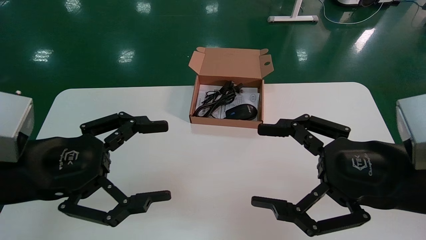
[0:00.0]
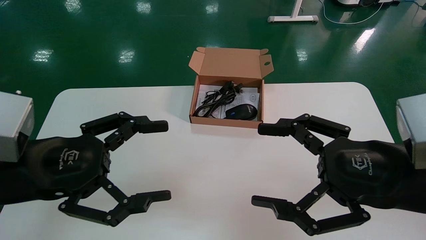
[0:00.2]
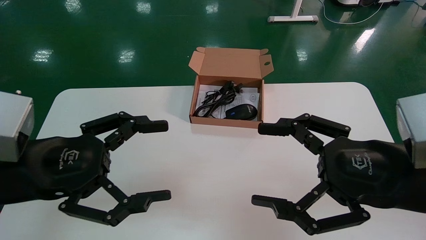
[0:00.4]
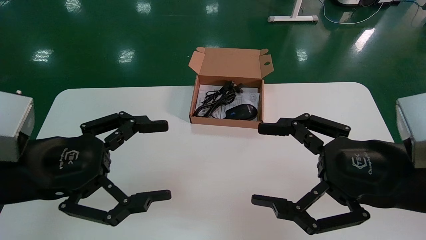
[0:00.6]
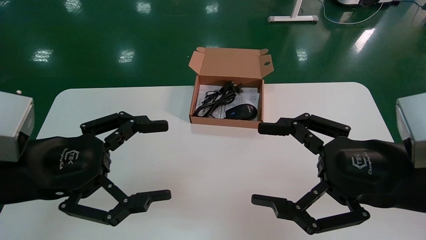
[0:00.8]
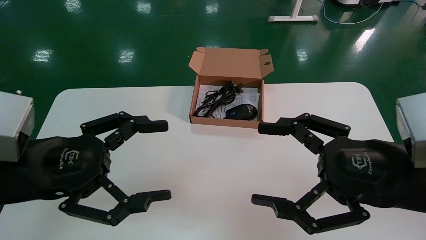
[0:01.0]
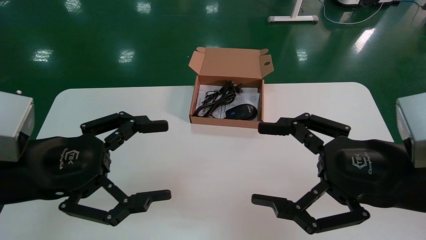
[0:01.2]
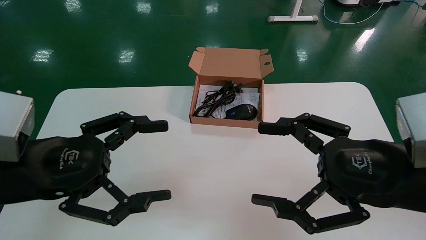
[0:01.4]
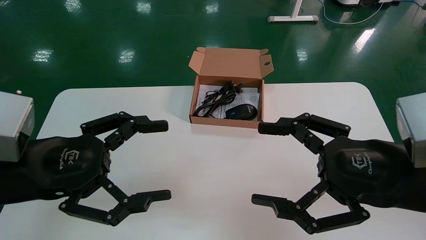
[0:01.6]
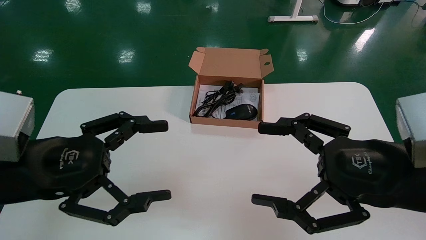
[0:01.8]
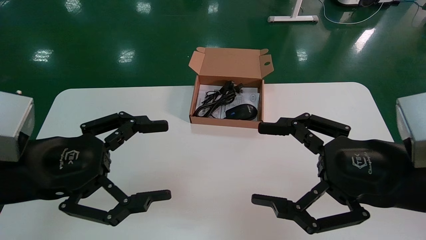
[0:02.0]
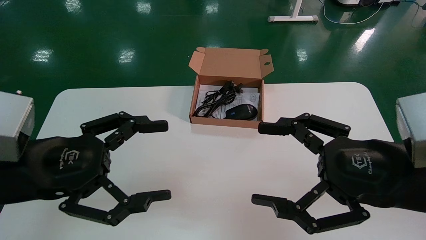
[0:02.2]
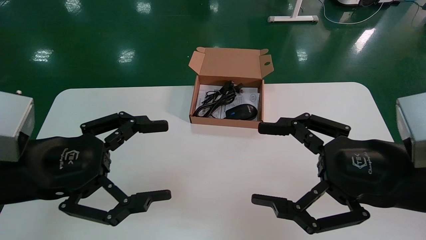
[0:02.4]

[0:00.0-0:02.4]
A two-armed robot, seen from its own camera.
0:00.0 to 0:02.4: Neither gripper changes place.
